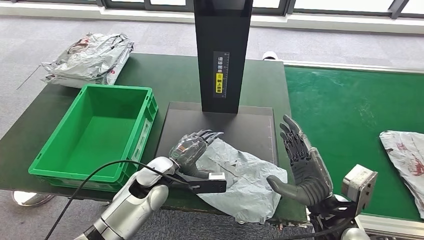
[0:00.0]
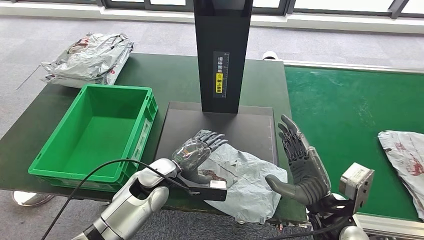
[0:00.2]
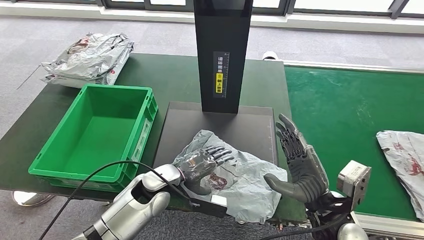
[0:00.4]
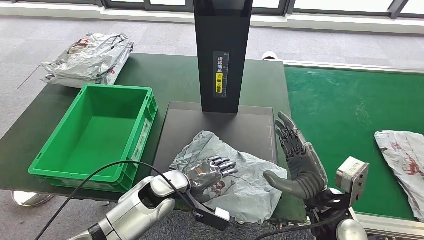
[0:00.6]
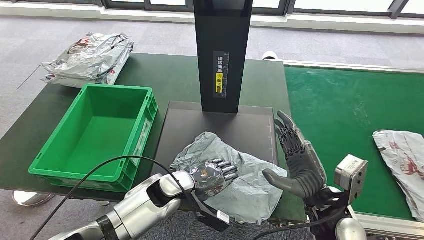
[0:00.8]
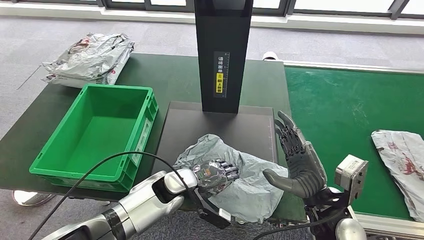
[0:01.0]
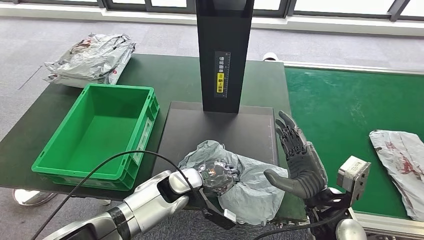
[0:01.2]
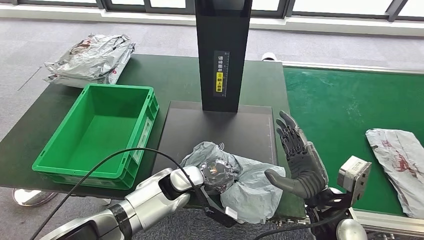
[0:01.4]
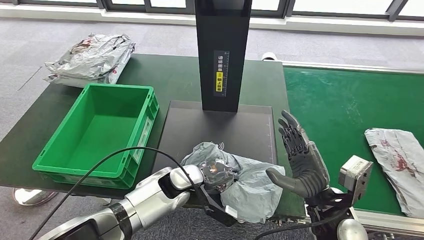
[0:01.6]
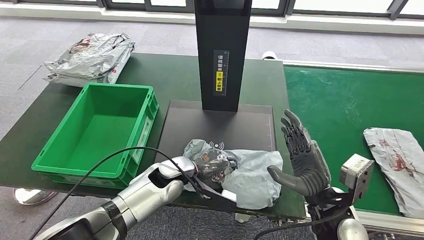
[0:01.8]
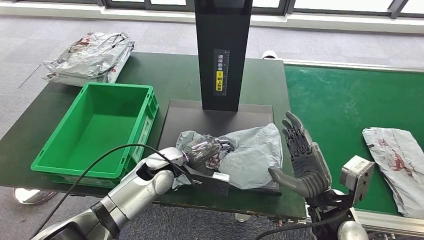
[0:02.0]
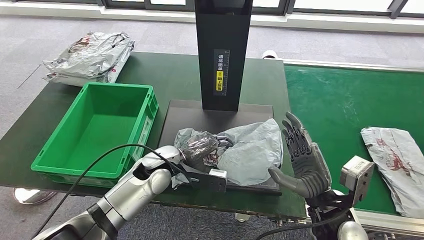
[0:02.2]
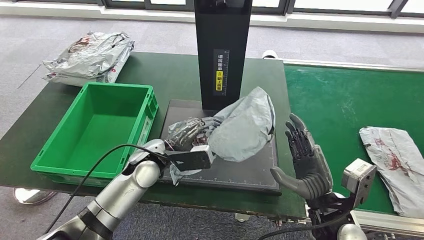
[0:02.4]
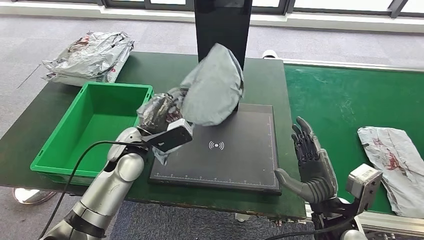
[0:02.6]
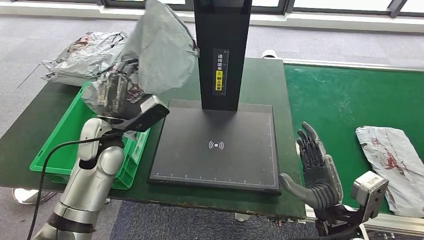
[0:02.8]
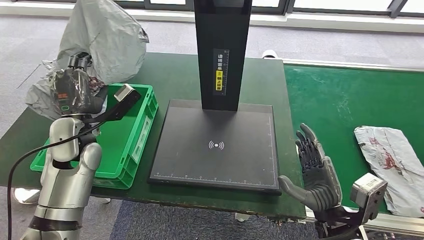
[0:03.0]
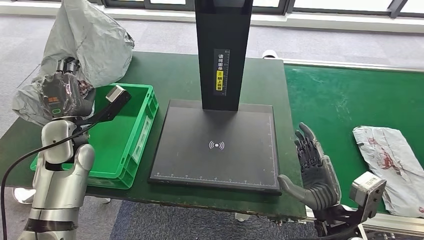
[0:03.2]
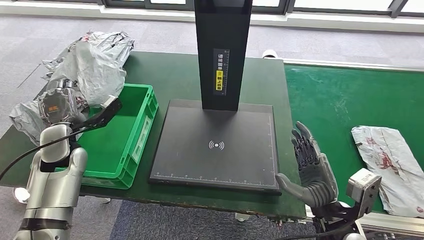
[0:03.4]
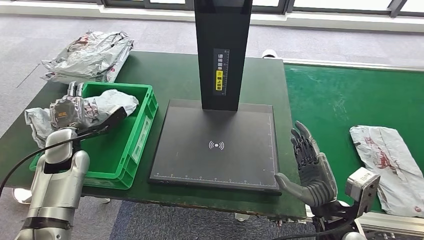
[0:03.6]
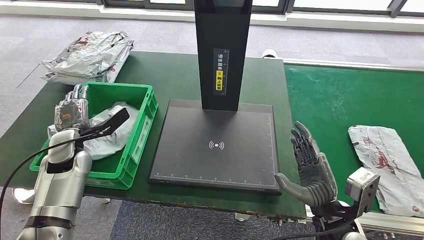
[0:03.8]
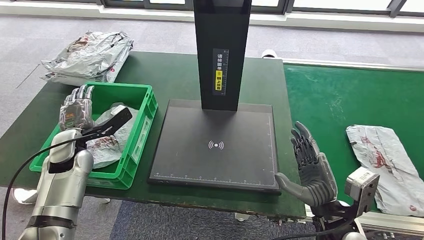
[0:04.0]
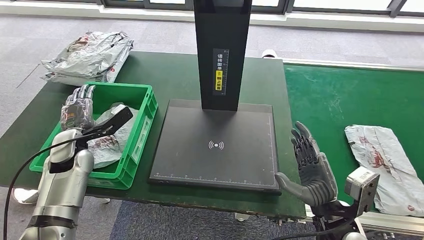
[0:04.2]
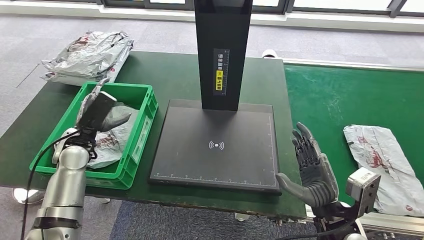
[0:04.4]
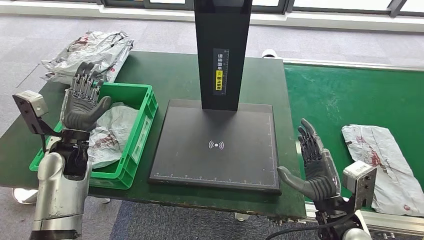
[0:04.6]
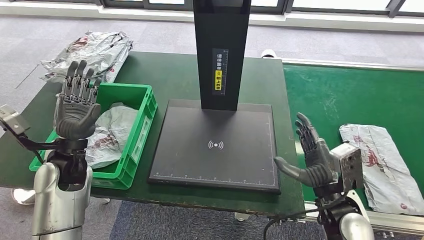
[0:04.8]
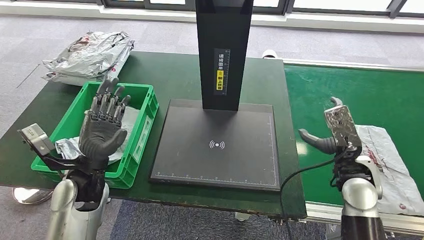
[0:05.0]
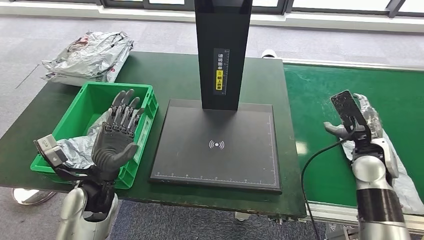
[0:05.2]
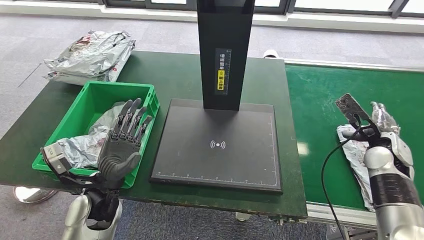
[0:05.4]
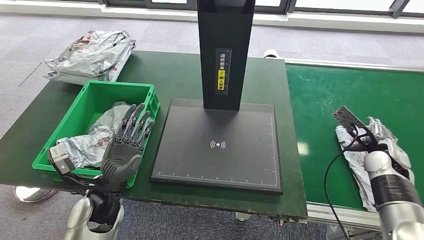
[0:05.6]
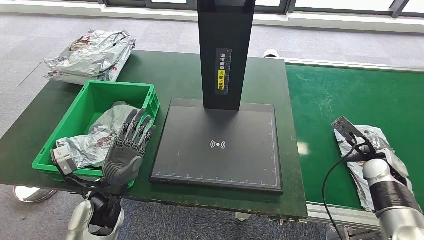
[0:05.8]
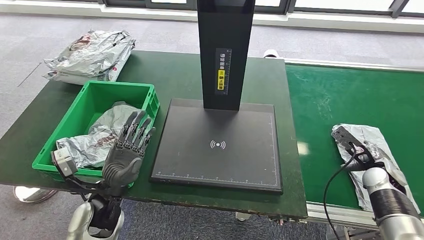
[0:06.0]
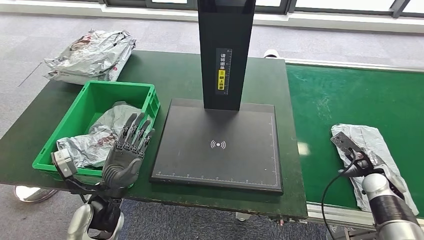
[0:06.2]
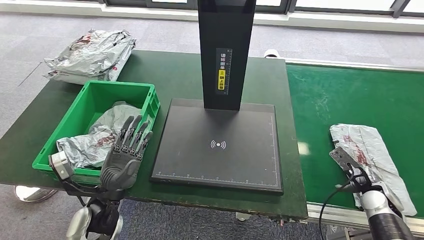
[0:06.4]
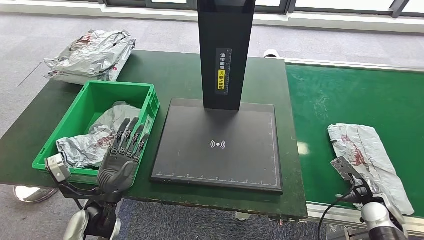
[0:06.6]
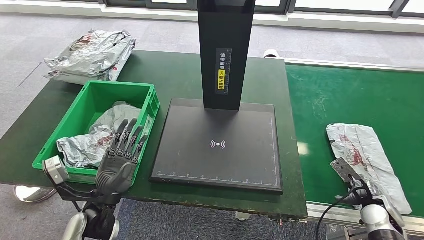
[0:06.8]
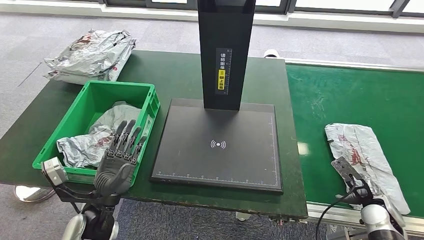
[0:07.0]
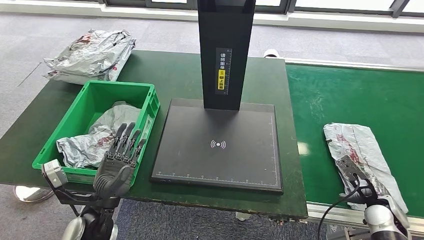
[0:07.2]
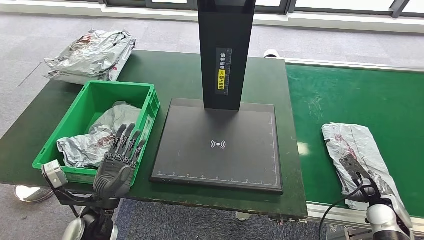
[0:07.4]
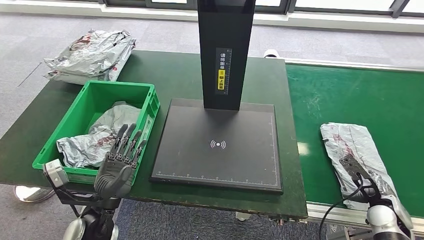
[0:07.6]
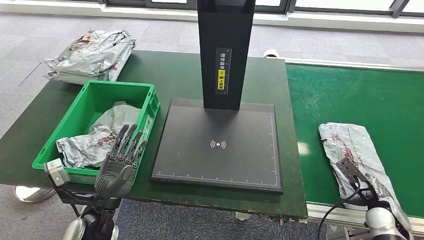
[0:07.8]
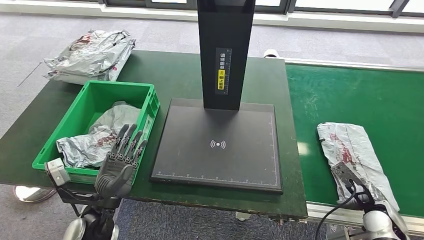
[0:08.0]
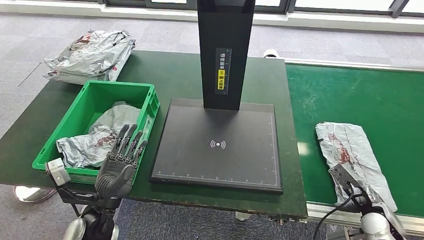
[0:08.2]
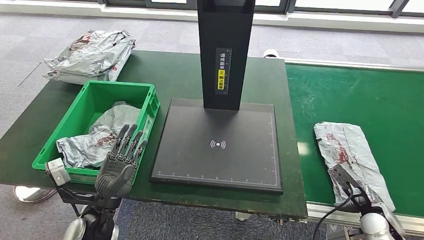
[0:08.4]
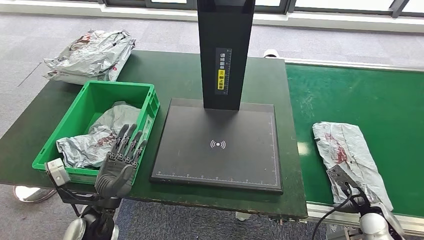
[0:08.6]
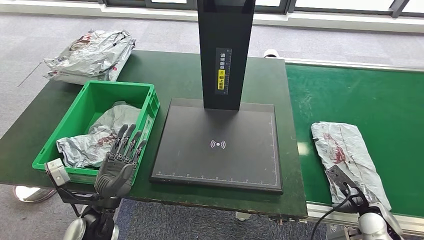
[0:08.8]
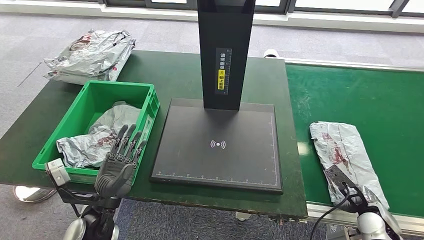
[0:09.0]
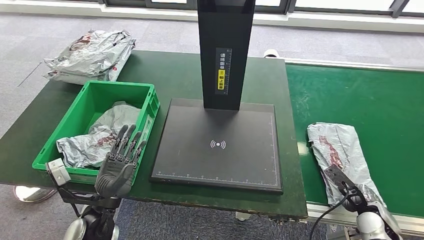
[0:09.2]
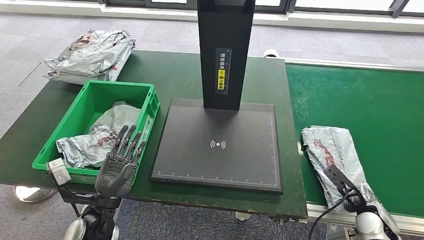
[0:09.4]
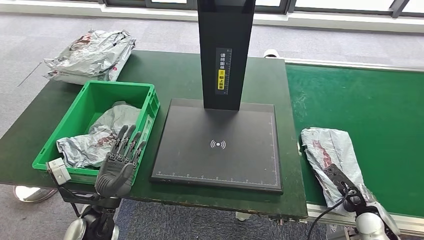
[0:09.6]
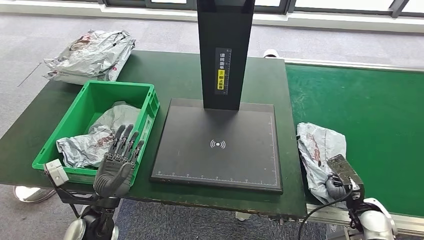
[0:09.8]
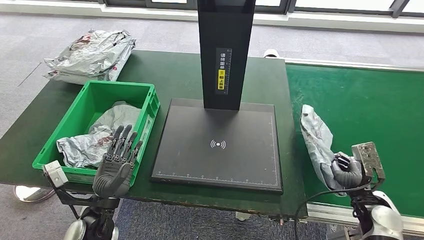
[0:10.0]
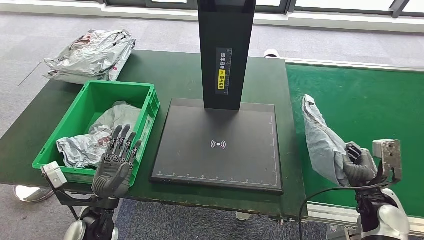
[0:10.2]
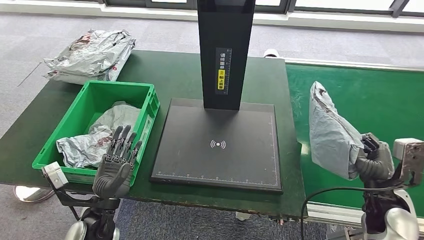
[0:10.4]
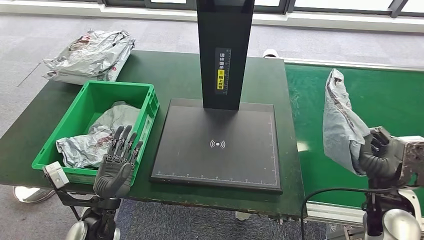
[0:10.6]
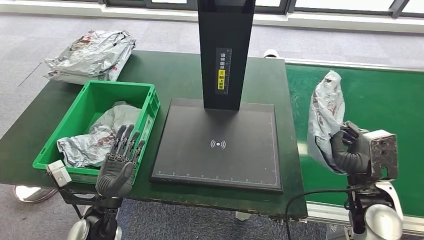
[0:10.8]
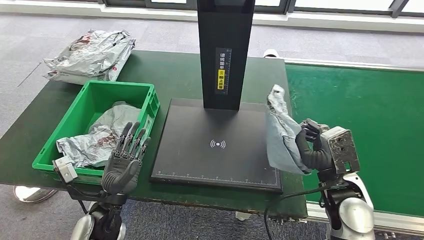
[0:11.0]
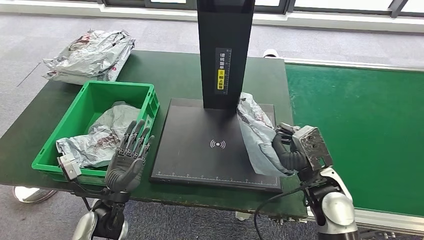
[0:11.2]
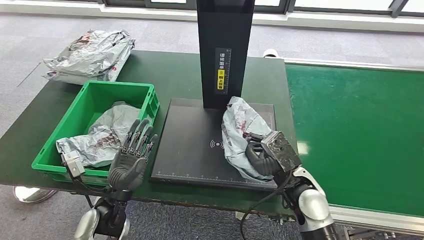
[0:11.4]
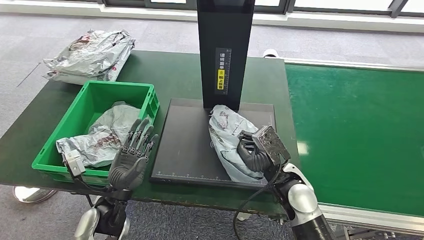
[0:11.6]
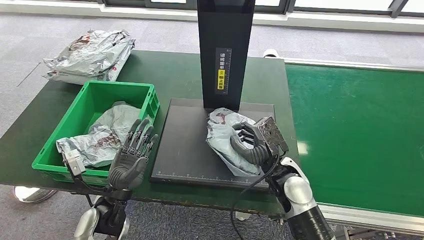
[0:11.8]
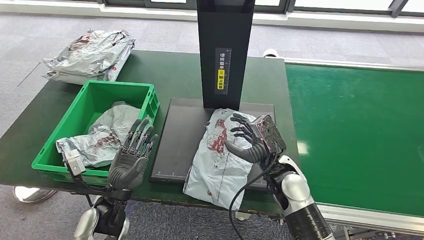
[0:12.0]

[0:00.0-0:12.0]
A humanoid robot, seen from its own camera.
Step, 0:00.0 to 0:03.0: Pick up the parcel from the inbound machine.
Step, 0:03.2 to 0:05.8: Put the parcel inside the courier box.
Step, 0:06.0 to 0:10.8: Pick up the parcel from the conveyor belt.
0:06.0 to 0:07.6: The right hand travels backward by approximately 10 cm.
0:07.6 to 0:09.0: The hands stay close to where they were, moving slightly.
0:09.0 to 0:10.4: The right hand moves upward, approximately 10 cm.

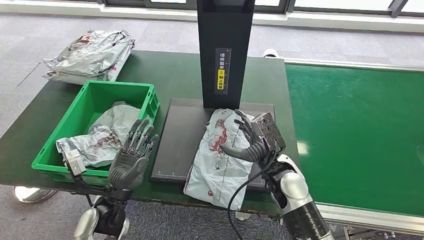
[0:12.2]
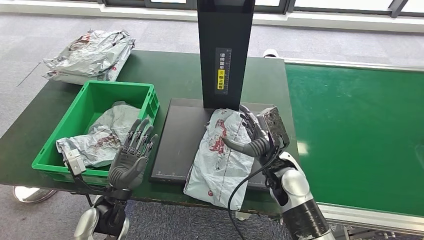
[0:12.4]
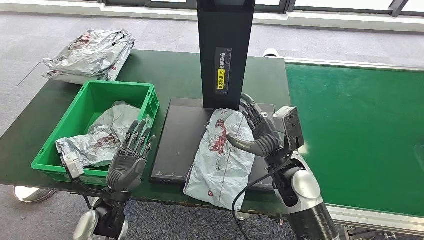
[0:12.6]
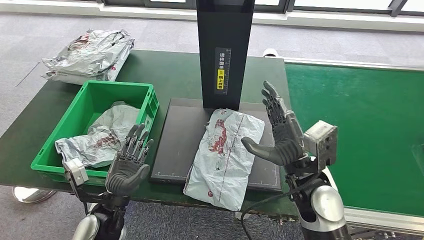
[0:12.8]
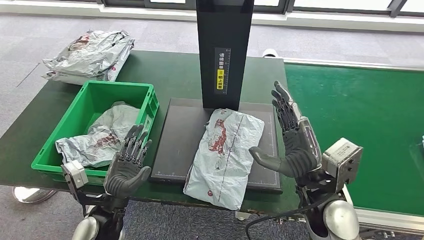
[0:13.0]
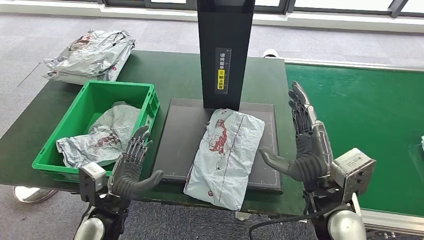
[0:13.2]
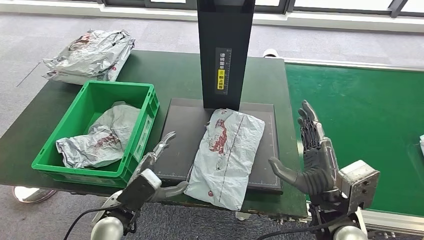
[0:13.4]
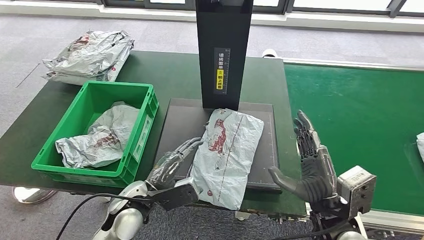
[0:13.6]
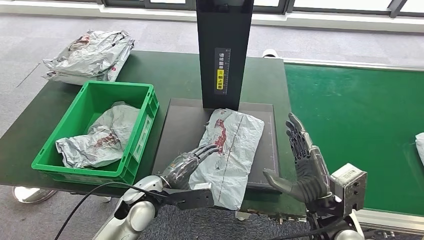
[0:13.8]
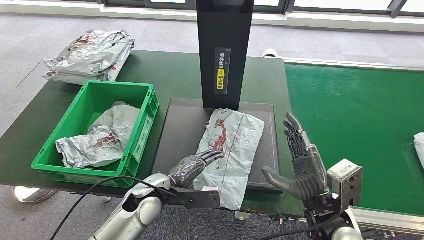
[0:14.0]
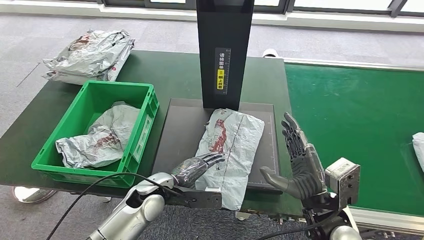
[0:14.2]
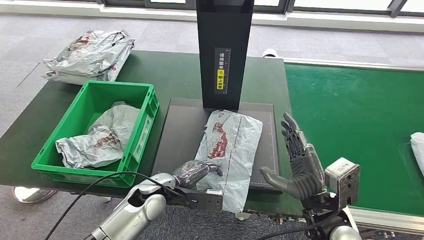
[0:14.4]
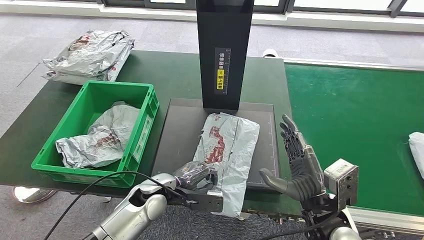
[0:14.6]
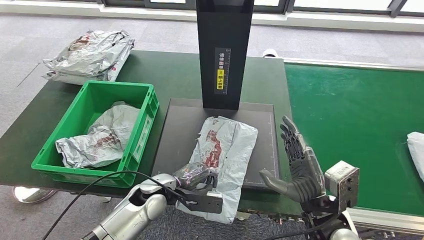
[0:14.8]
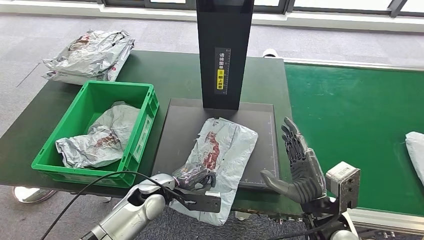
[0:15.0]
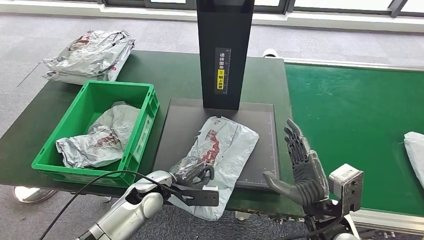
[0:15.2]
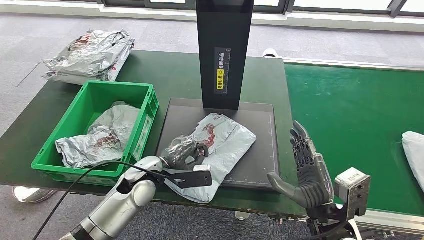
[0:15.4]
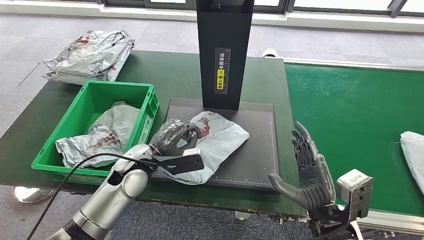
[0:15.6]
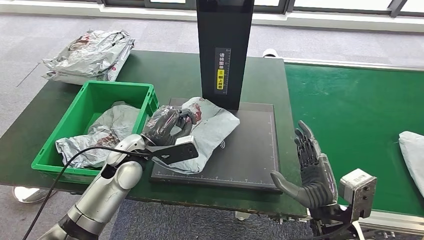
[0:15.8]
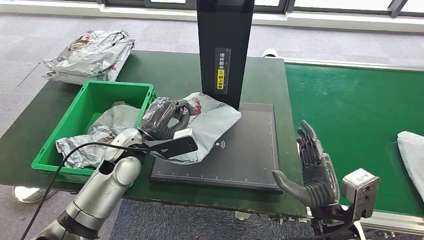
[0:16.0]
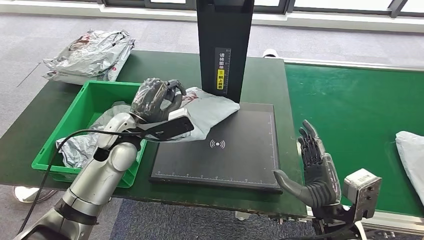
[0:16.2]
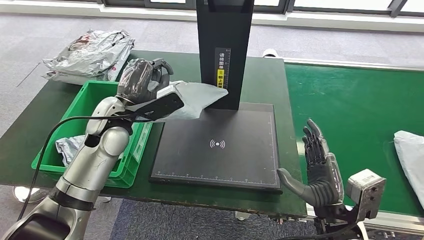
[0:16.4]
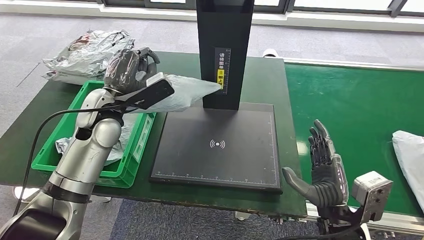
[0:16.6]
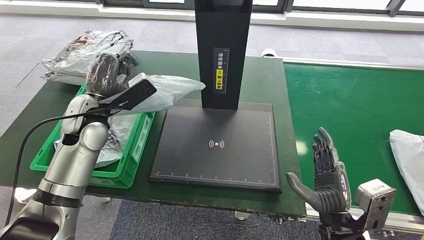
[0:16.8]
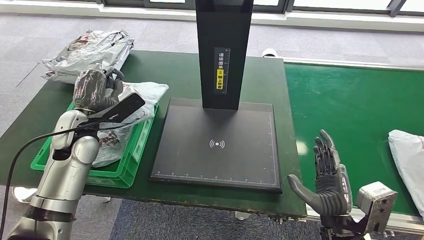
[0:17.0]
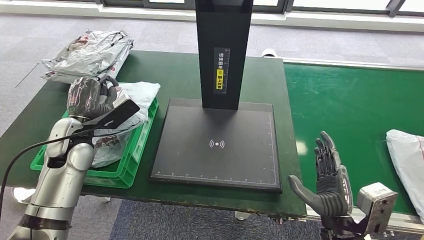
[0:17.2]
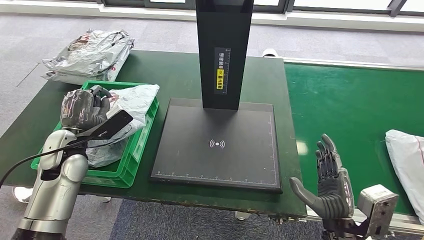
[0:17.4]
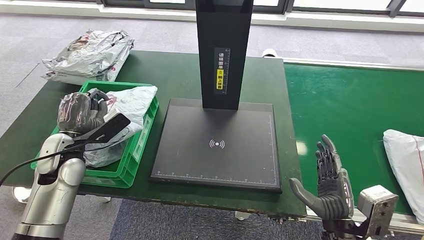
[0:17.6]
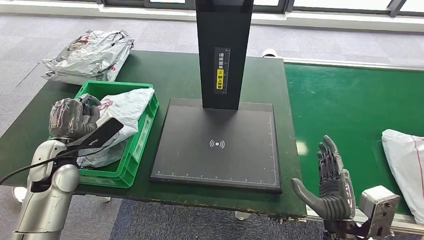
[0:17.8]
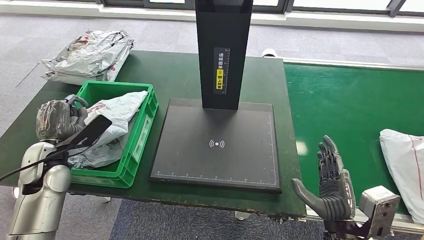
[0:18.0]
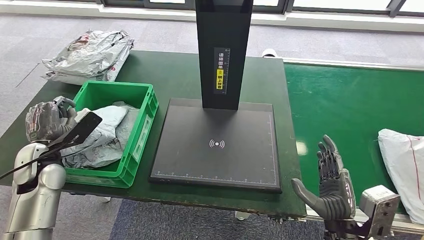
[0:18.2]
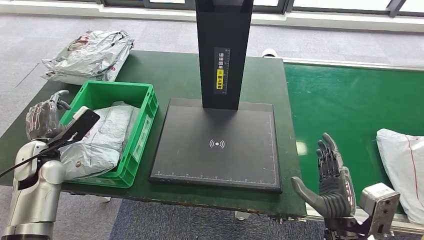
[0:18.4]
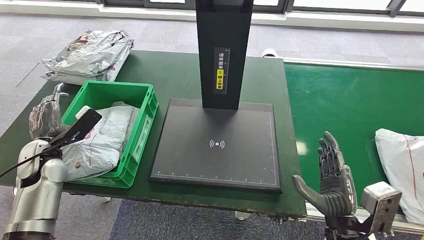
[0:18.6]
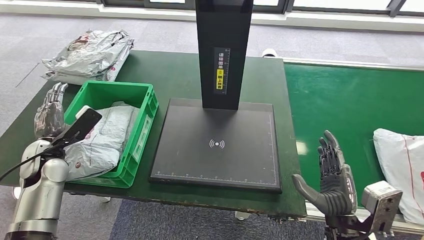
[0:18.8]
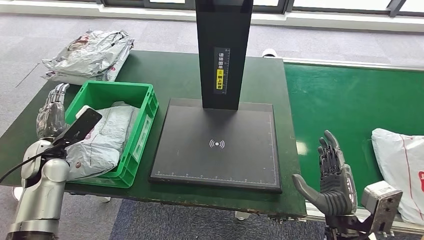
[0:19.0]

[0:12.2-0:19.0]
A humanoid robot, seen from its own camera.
Step, 0:12.2 to 0:14.4: Place the parcel onto the inbound machine.
Step, 0:14.6 to 0:17.4: Pick up the parcel from the inbound machine.
0:12.2 to 0:13.6: The right hand goes about 15 cm backward and to the right, while the left hand moves to the right, roughly 5 cm.
0:13.6 to 0:15.0: The left hand moves downward, roughly 5 cm.
0:17.6 to 0:19.0: The left hand is displaced to the left by about 5 cm.
